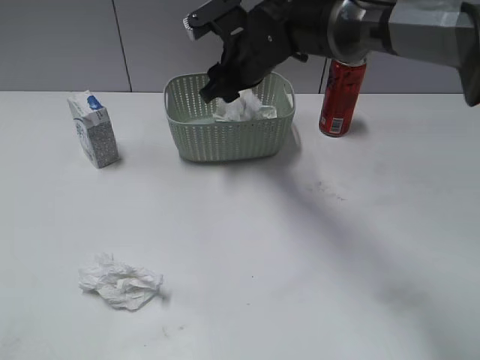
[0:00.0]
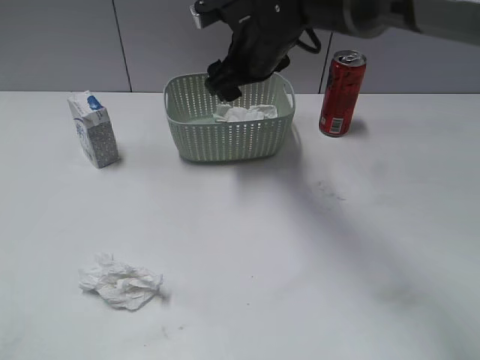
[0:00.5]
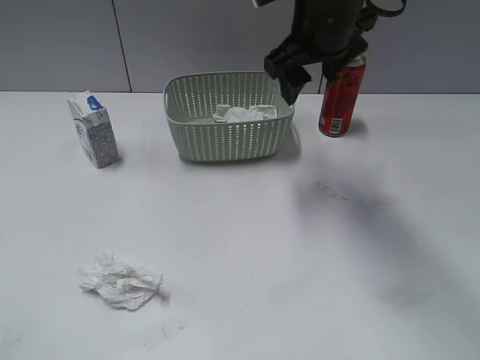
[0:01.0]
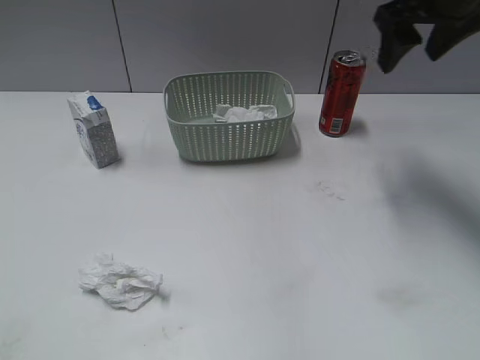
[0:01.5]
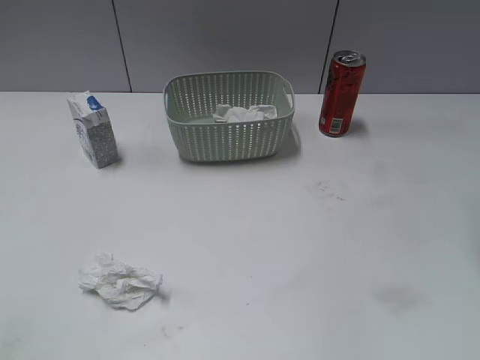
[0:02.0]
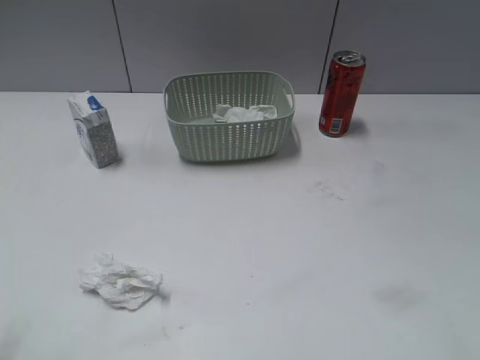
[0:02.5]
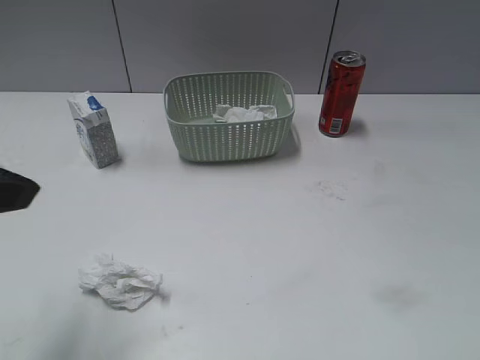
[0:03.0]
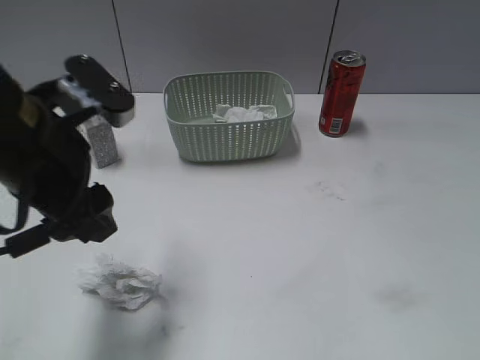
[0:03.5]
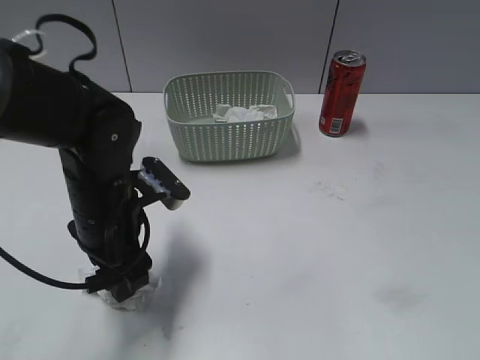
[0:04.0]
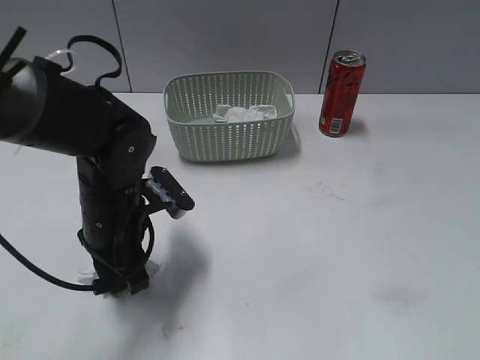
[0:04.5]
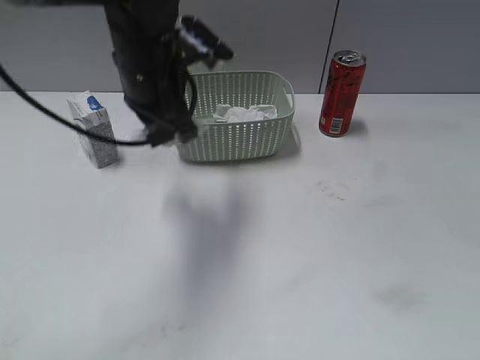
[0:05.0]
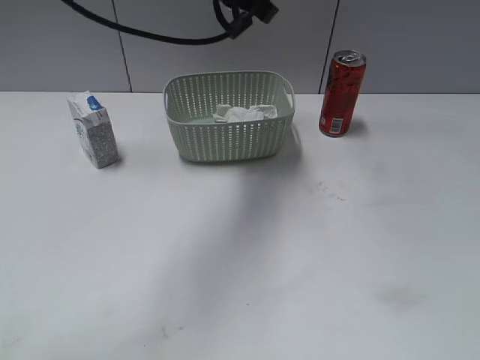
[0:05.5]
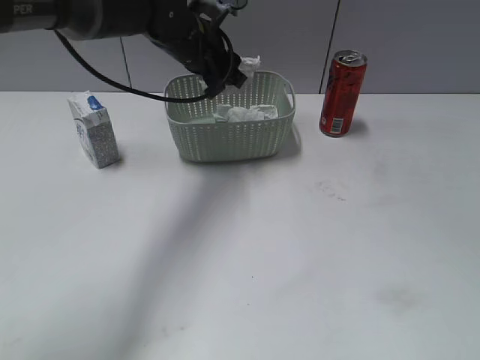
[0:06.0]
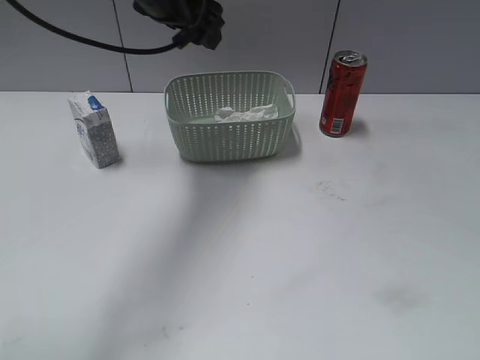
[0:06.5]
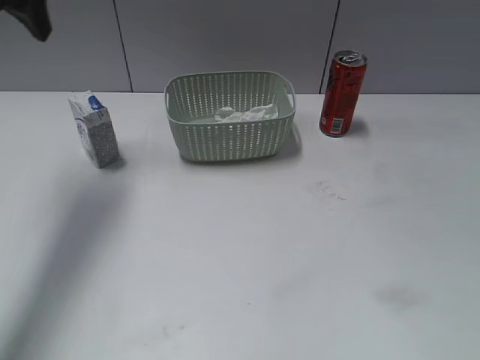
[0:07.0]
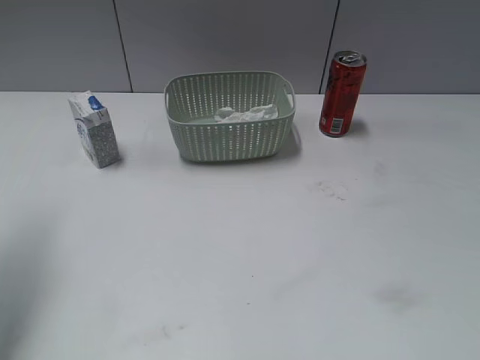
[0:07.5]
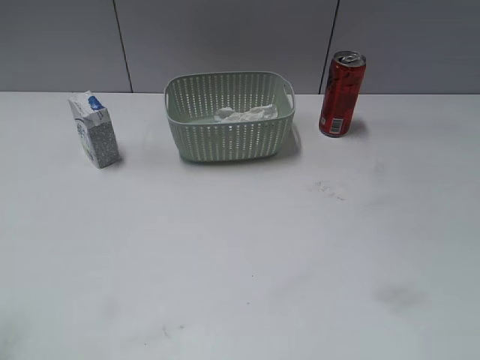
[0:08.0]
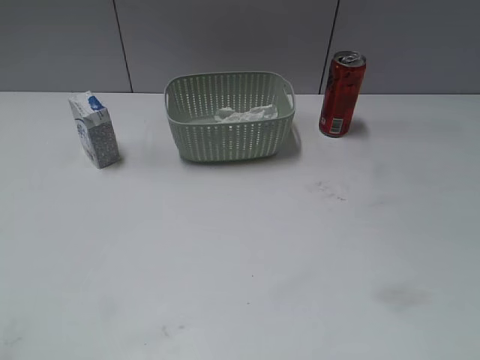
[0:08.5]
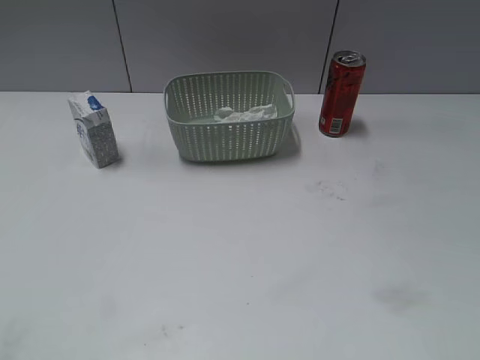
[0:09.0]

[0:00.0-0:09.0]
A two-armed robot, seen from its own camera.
Step, 0:00.5 to 0:04.5: Grasp the waste paper with left gripper.
Step, 0:05.0 to 0:06.0: Place the waste paper in the basket with left gripper.
0:00.0 to 0:02.0: The right gripper is displaced to the right, backward and upward by about 35 cm.
0:02.0 to 0:04.5: The left gripper moves forward, to the right and downward, roughly 35 cm, and closes up. The right gripper is displaced backward by some 30 cm.
0:04.5 to 0:07.0: The left gripper moves up and down over approximately 25 cm, changing direction 2 times, and opens its fingers.
0:07.0 to 0:09.0: The left gripper travels backward by approximately 40 cm.

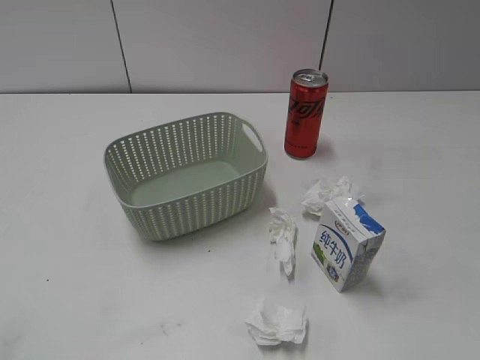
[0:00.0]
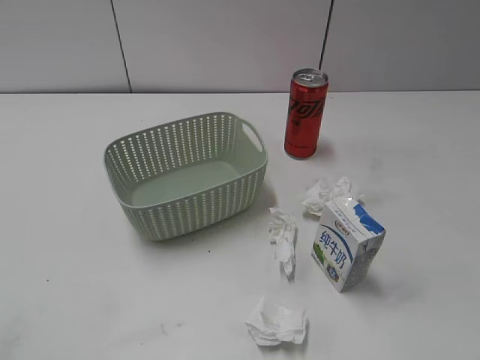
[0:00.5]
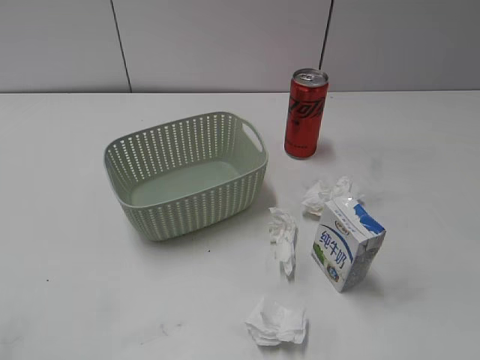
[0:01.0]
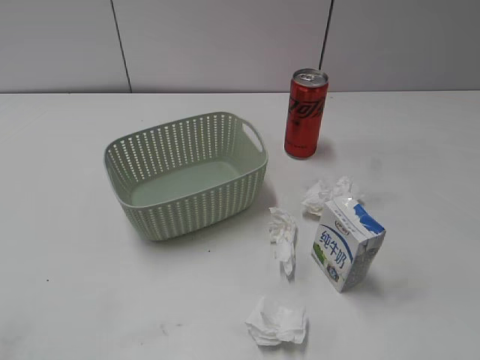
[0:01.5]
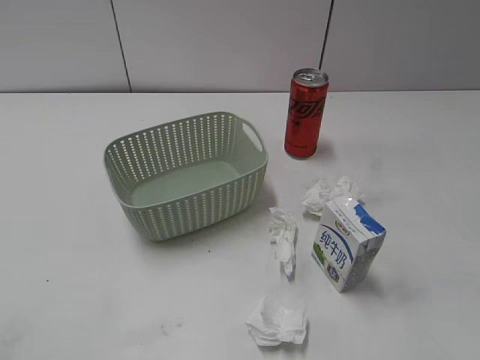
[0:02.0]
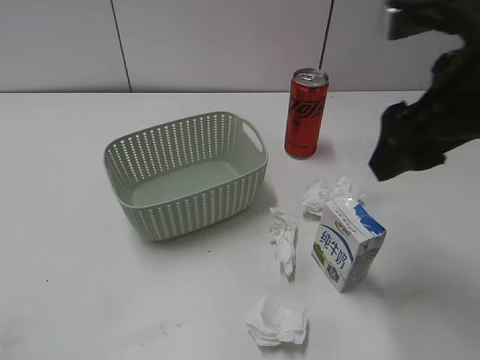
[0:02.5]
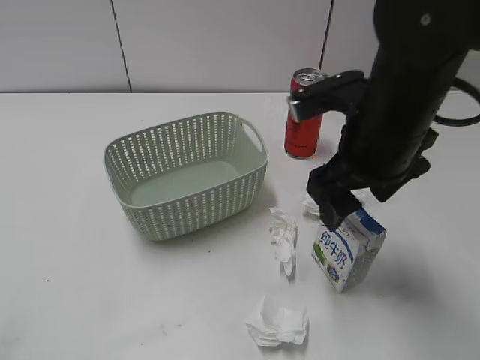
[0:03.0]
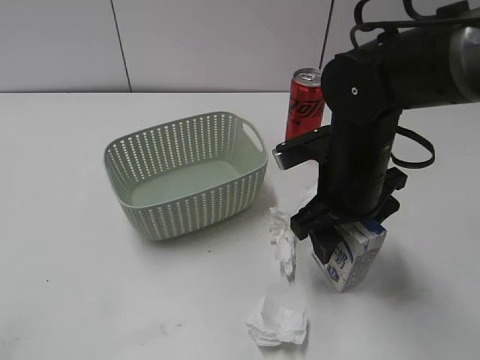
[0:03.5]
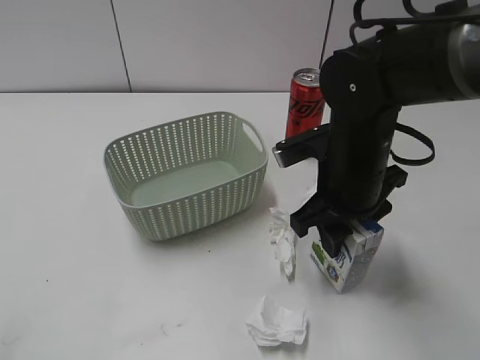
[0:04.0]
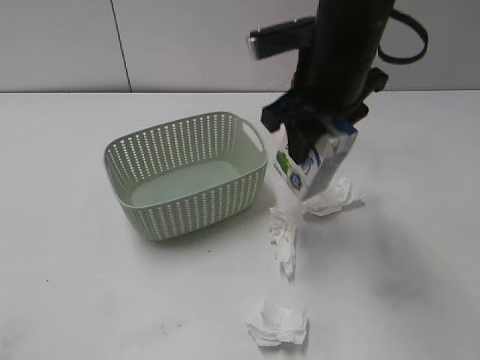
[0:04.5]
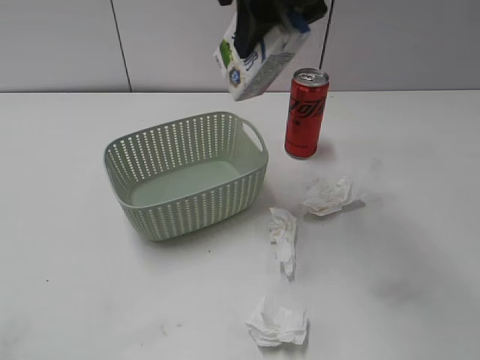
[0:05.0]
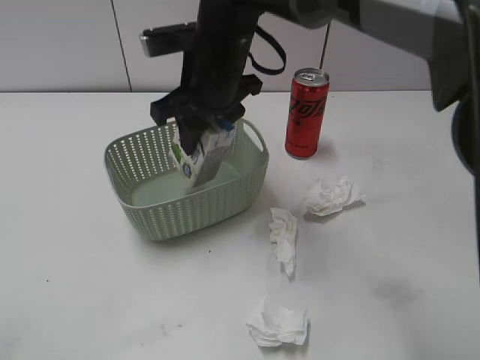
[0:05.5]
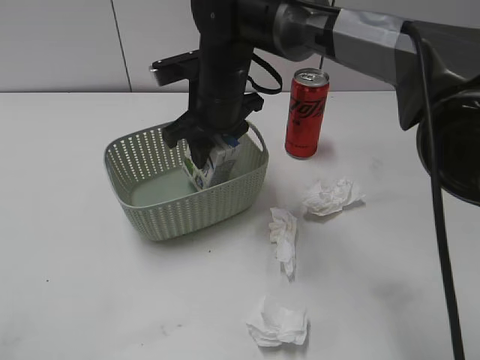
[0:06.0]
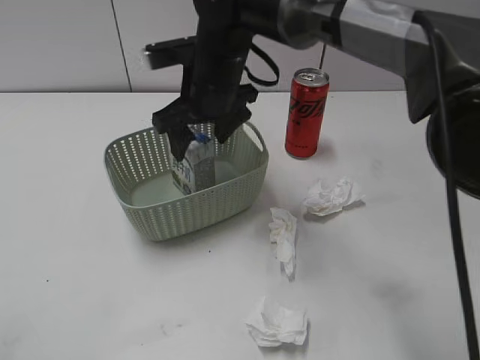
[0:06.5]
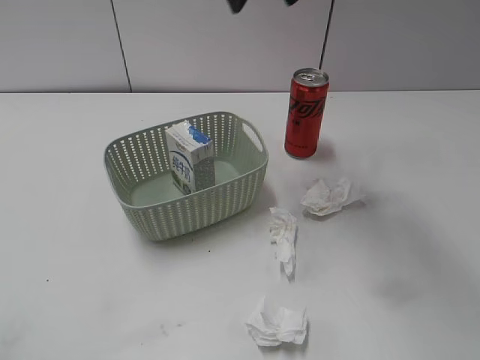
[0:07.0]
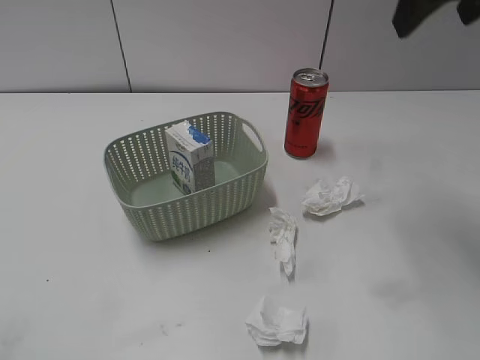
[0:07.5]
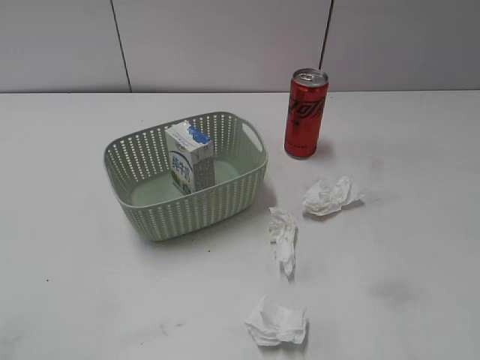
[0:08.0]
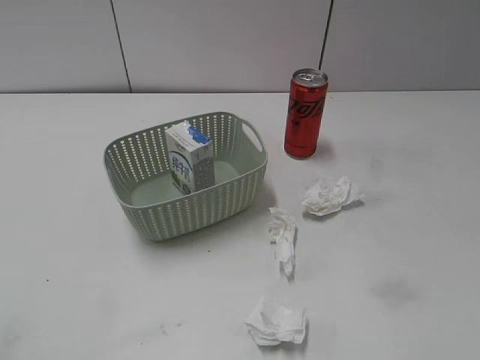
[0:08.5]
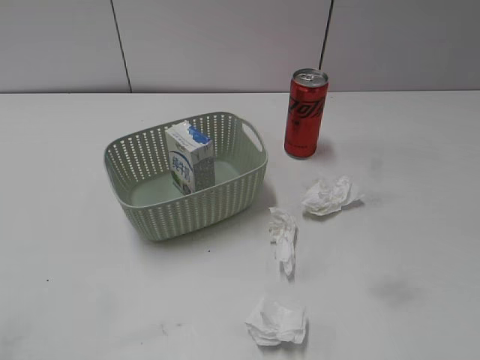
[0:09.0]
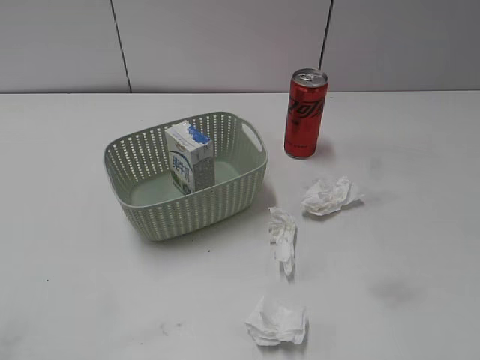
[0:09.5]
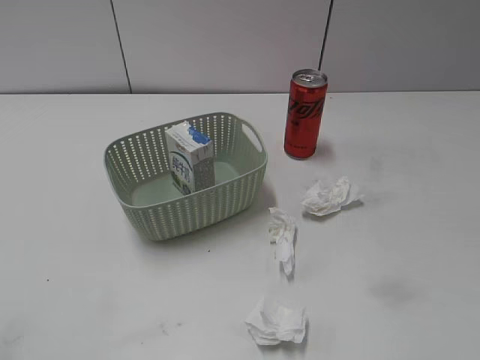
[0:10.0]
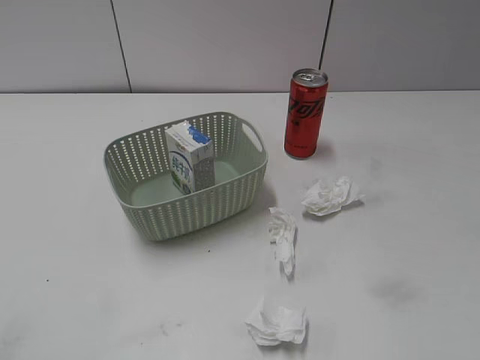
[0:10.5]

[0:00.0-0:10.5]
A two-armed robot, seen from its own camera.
Step, 0:02.5 to 0:03.5: Grasp the milk with right gripper.
Step, 0:04.0 to 0:06.5: Place the milk in the basket with right gripper.
0:02.0 to 0:04.0: The right gripper moves to the left, downward and forward, about 30 cm, and closes.
0:04.0 to 0:06.5: The right gripper is displaced to the left and forward by some 20 cm, travels upward and back again, roughly 20 cm each way, and opens.
0:06.5 to 0:08.5: The right gripper travels to the right and backward by about 50 cm.
